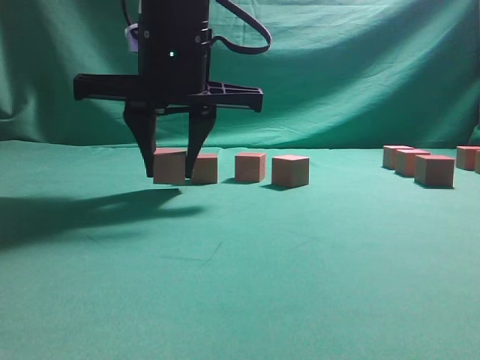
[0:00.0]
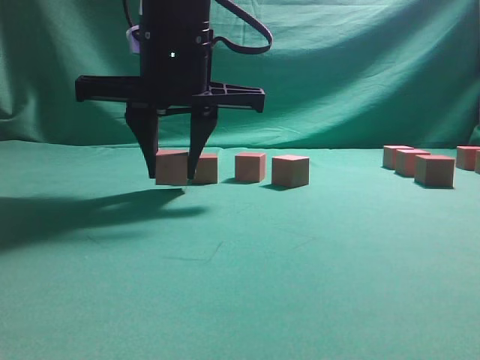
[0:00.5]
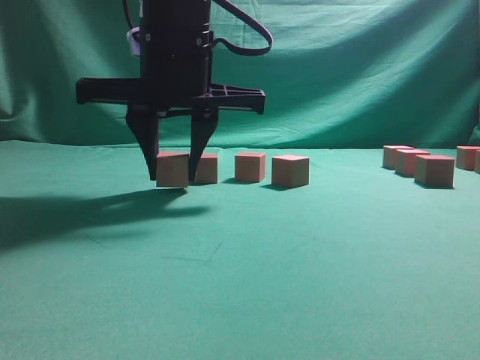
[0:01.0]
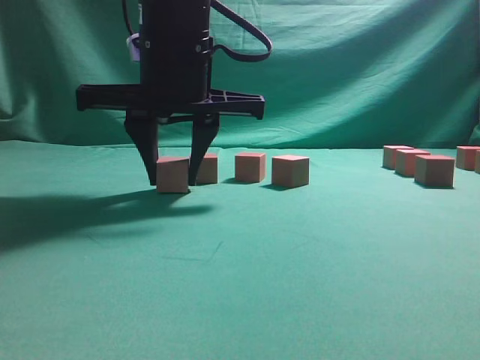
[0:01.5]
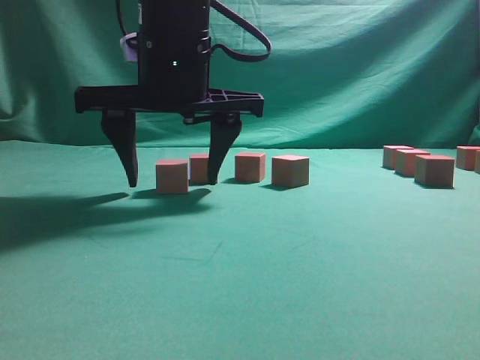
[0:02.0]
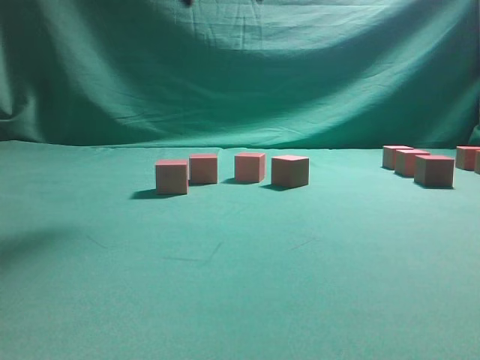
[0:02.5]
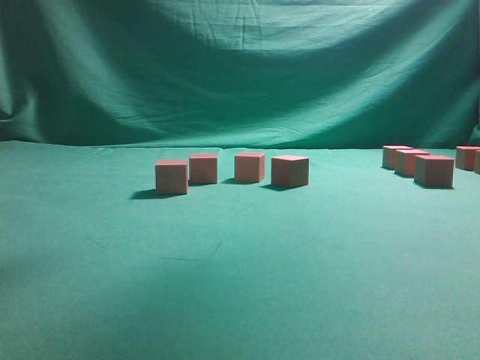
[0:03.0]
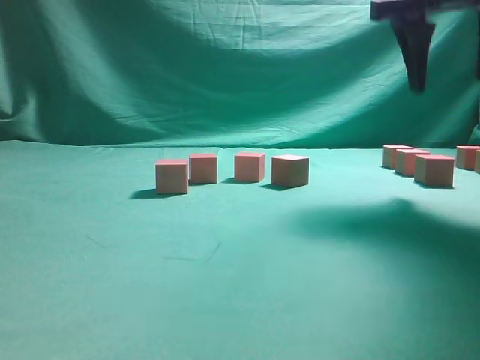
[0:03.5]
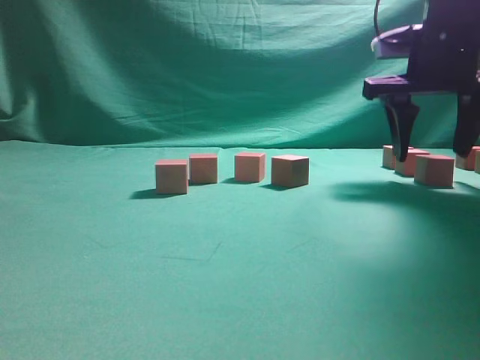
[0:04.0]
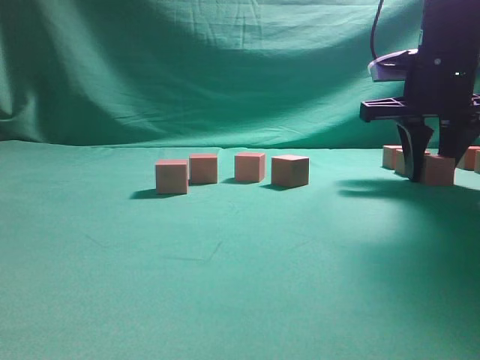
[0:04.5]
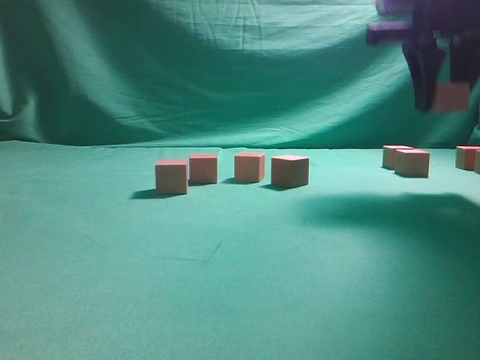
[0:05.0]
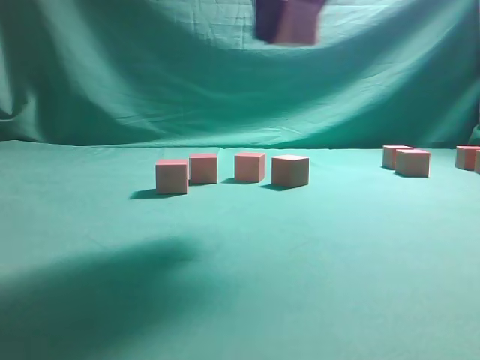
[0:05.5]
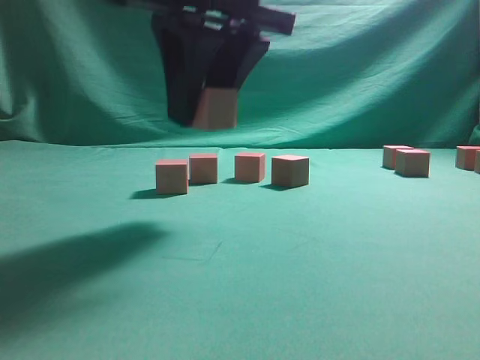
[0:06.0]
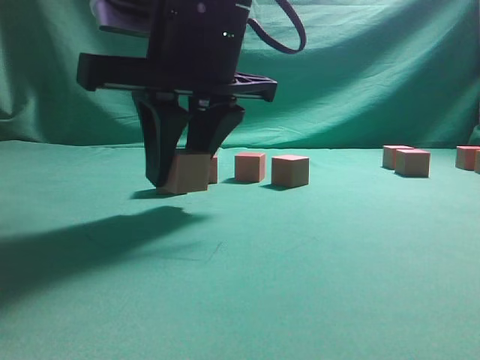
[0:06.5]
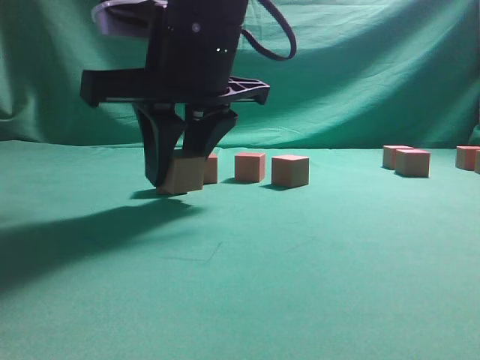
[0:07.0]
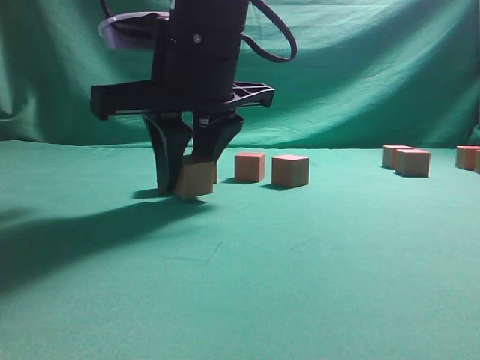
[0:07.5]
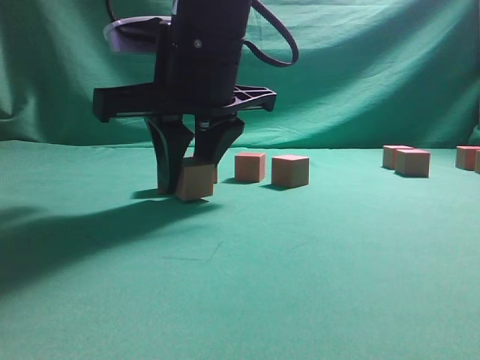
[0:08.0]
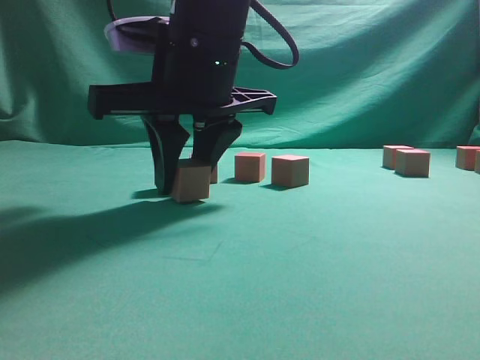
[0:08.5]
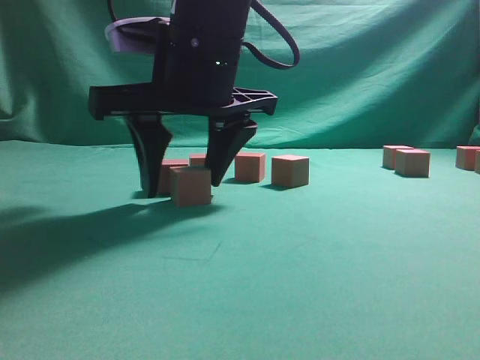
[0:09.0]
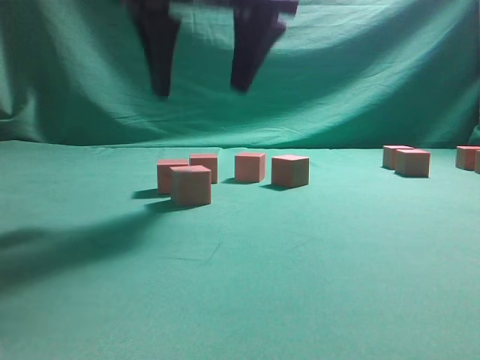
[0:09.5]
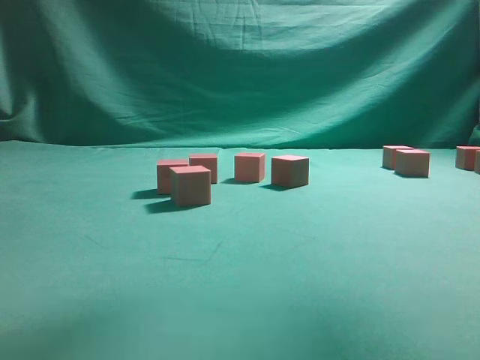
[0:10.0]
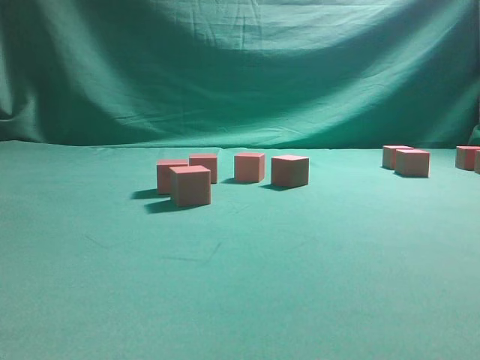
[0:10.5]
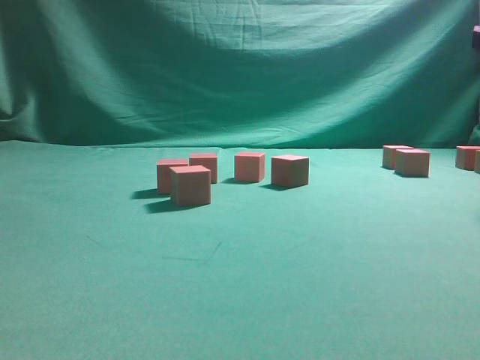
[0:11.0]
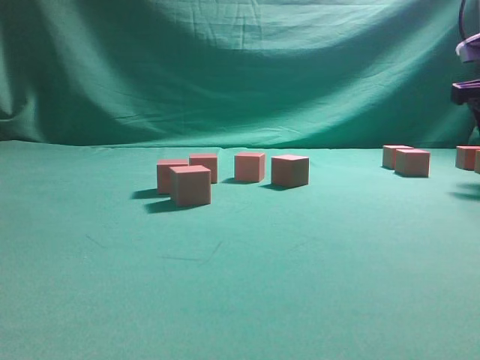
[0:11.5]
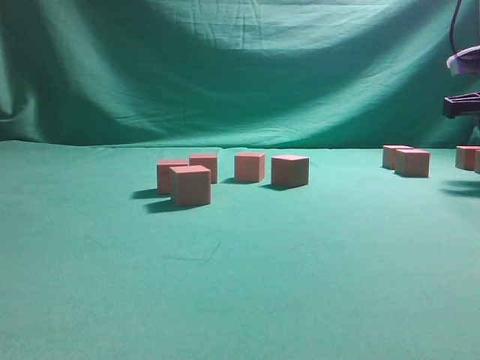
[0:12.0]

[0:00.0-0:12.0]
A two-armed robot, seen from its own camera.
Task of the whole recording: pick up the multiple cubes in two columns one by one and place them in another position on the table.
Step, 0:00.0 to 0:02.0: Place the block at the correct position to assemble the letter S.
Step, 0:02.5 to 0:04.5: Pick up the block on the table.
Step, 0:05.0 to 0:09.0: Place the block at the correct position to assemble the letter S.
0:00.0 to 0:02.0: The right gripper opens.
0:02.0 to 0:04.0: The right gripper moves to the right, about 25 cm.
0:04.0 to 0:06.0: The right gripper moves to the left and backward, some 25 cm, and closes up.
0:06.0 to 0:08.0: The right gripper goes about 5 cm downward.
0:08.0 to 0:10.0: The right gripper shifts about 25 cm upward and to the right, and opens up.
0:10.0 to 0:12.0: The right gripper travels downward, to the right and forward by roughly 30 cm, and closes its fingers.

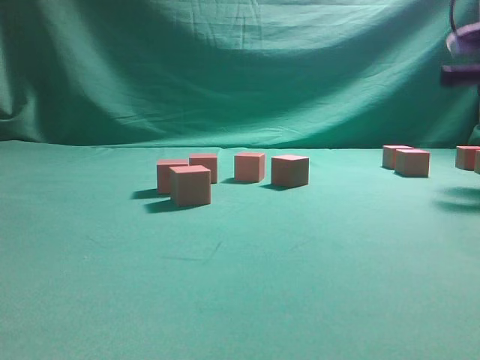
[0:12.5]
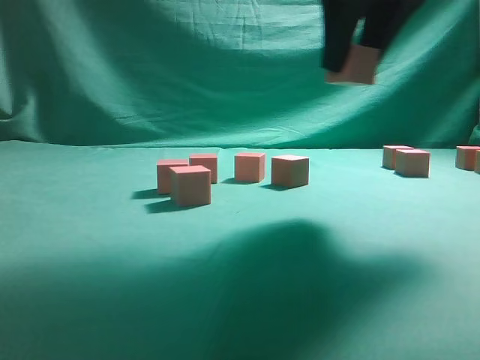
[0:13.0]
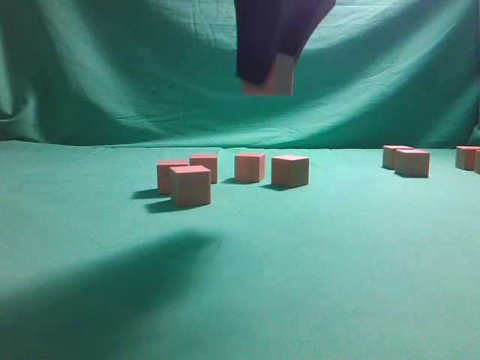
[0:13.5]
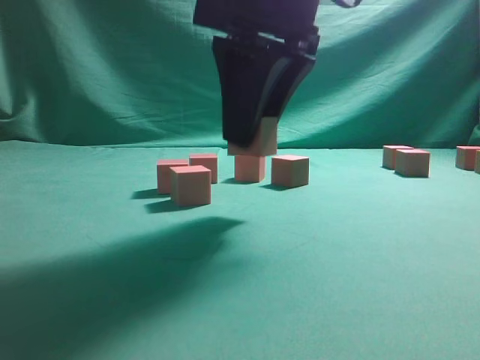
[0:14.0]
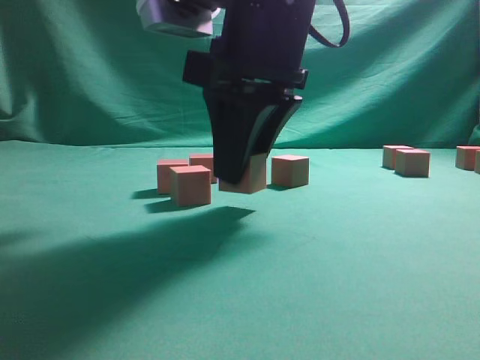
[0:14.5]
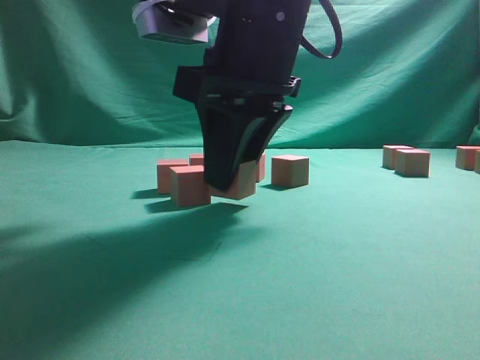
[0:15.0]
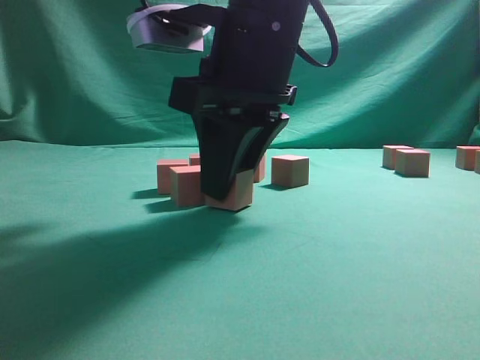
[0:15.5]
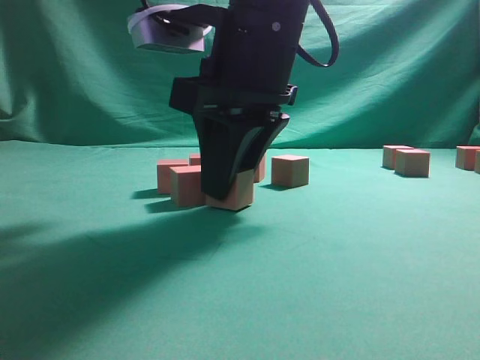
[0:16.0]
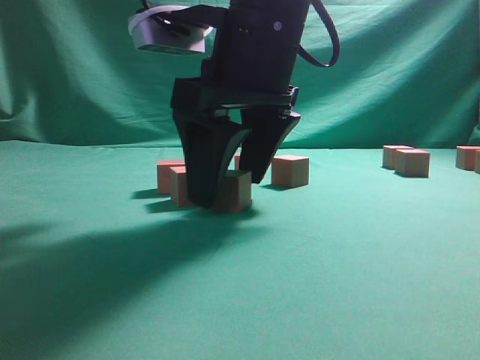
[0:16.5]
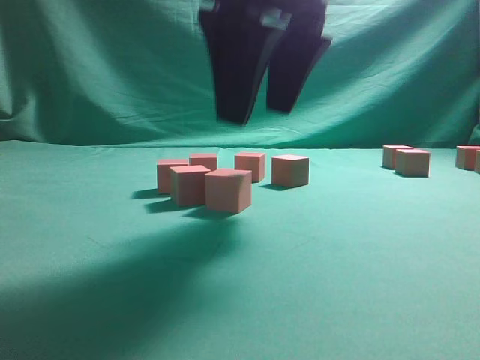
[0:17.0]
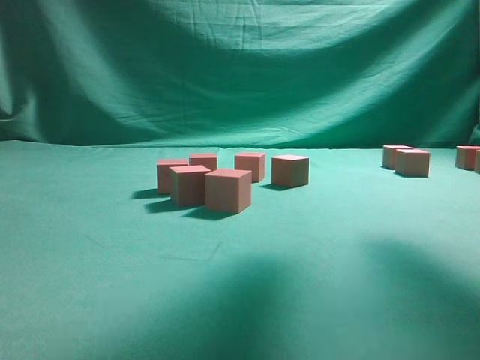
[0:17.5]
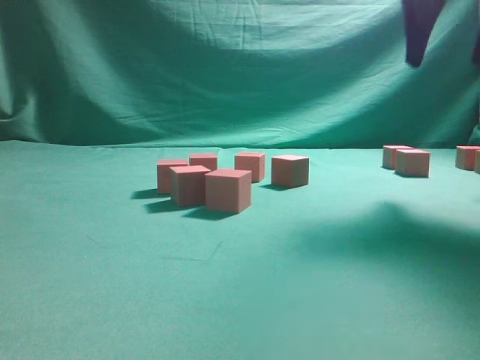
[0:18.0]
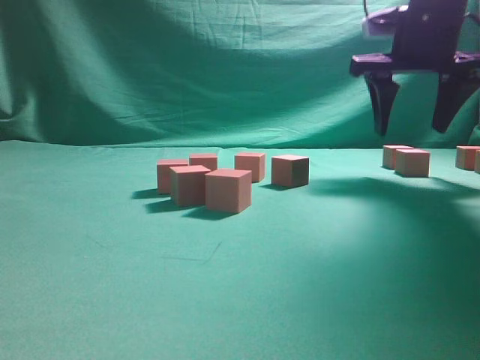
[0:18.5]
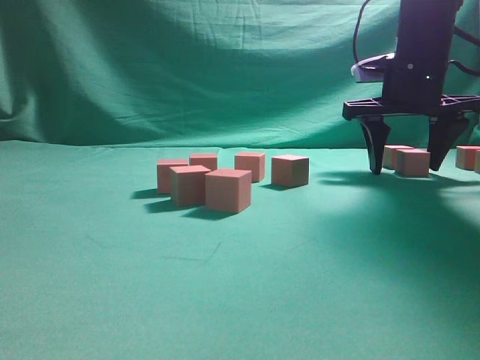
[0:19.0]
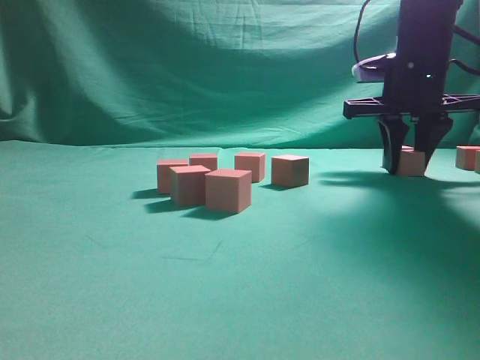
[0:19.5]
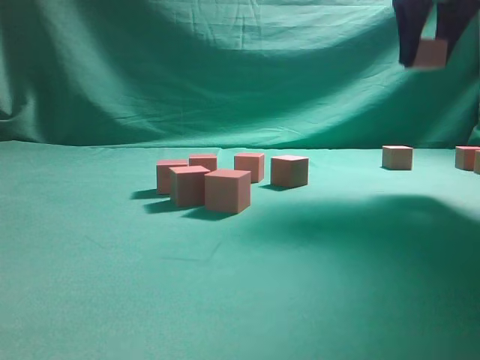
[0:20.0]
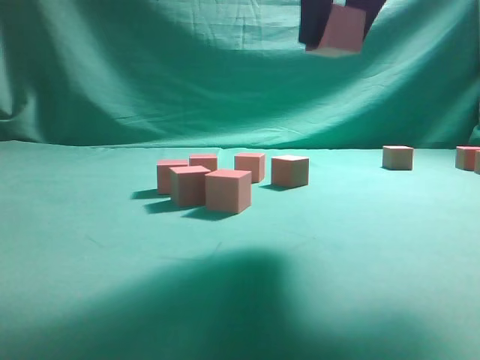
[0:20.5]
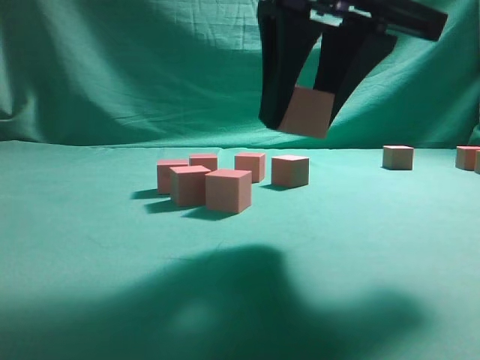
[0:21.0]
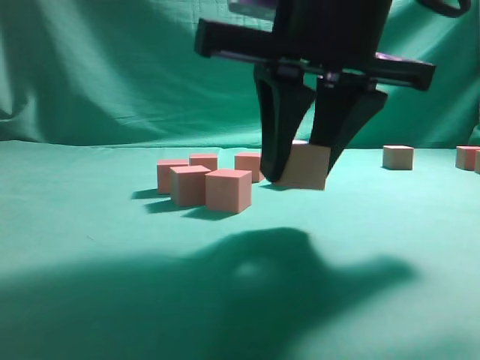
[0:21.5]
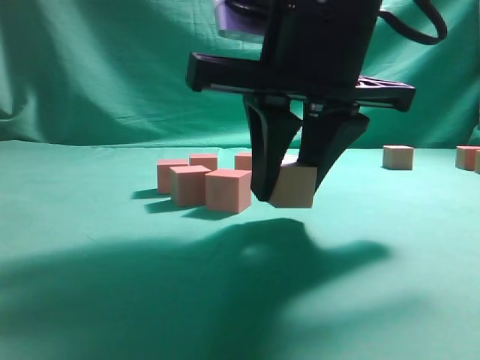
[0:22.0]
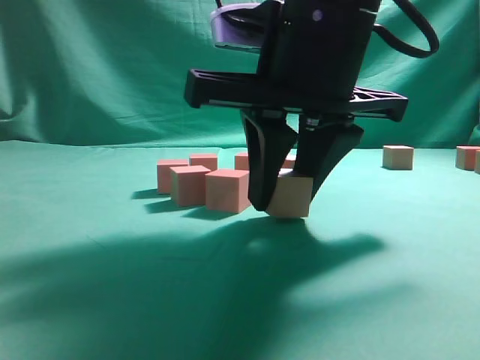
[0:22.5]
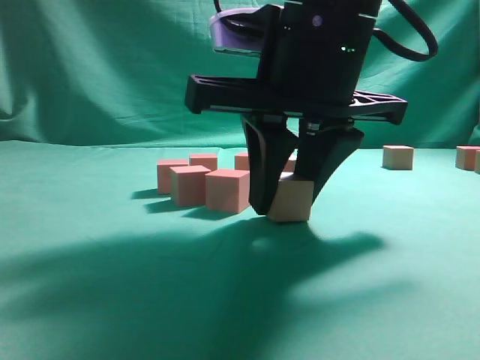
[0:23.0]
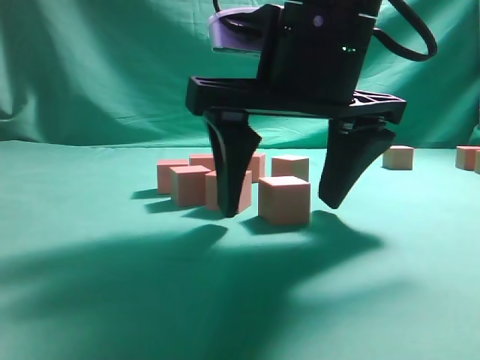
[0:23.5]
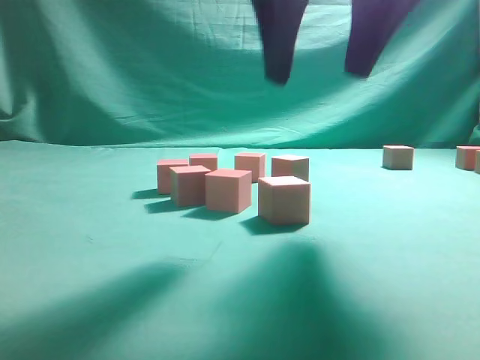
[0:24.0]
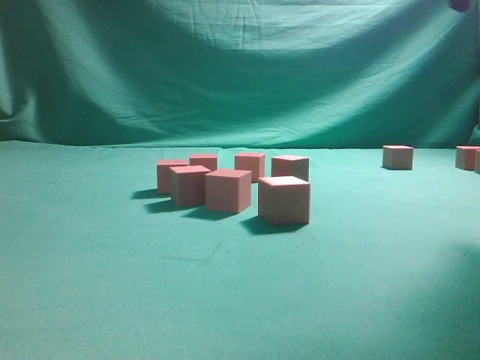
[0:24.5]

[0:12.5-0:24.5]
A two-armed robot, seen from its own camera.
Task of the whole recording: pick up the multiple cubes in two columns one by one and place them in another position on the table.
Step, 0:13.0 to 0:17.0: Place the block at the correct position to assemble the letter S.
Step, 0:17.5 to 0:19.5: Pick up the block on the table.
Step, 0:20.0 to 0:23.5: Place the block at the correct position to assemble the letter S.
0:12.5 to 0:14.5: The right gripper is displaced to the left by some 25 cm.
0:14.5 to 0:16.5: The right gripper opens its fingers.
0:16.5 to 0:18.5: The right gripper heads to the right and forward, covering about 25 cm.
0:18.5 to 0:20.5: The right gripper travels backward, to the left and upward by roughly 20 cm, and closes.
0:20.5 to 0:22.5: The right gripper heads downward, covering roughly 10 cm.
0:22.5 to 0:24.5: The right gripper moves to the right and upward, about 20 cm, and opens.

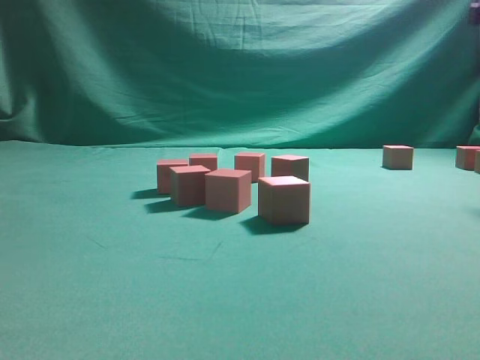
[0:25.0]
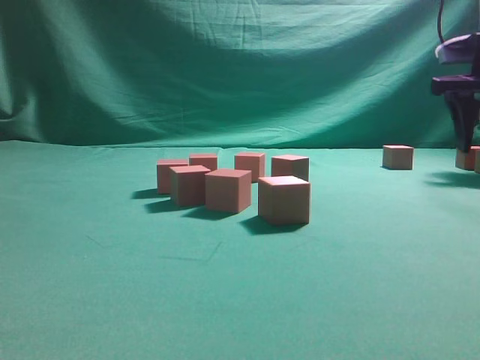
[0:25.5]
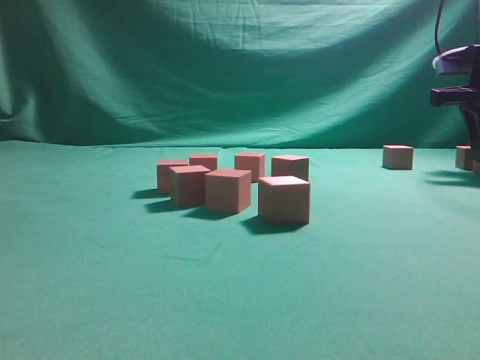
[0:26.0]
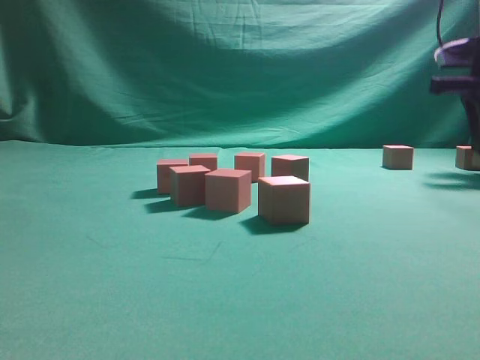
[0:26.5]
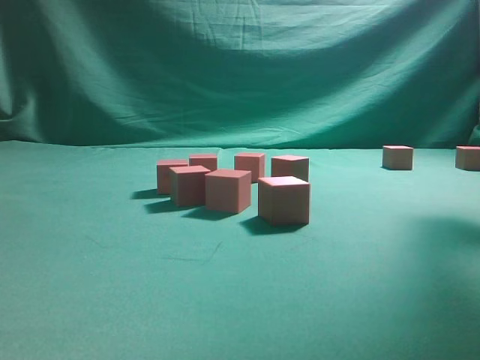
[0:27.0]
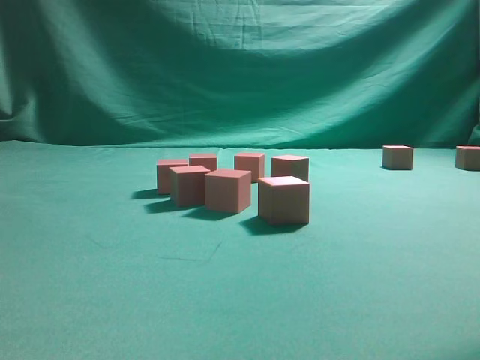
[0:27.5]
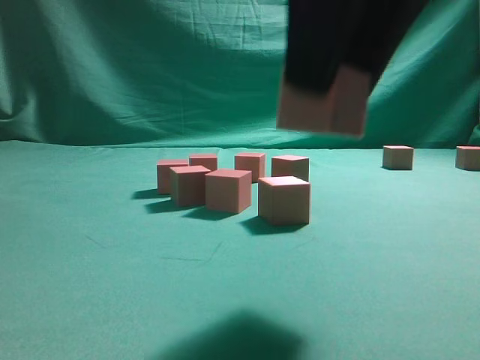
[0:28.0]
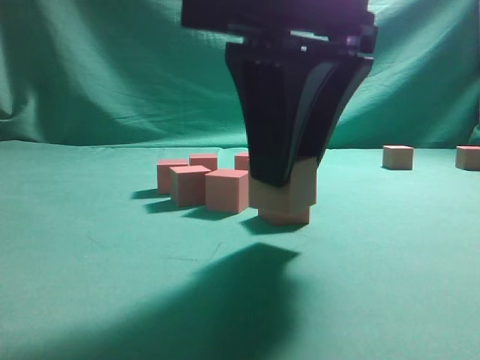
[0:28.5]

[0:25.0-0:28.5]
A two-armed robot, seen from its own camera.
Task of the whole recording: pick up the multiple cubes in two columns one by one and place them in another position on the table.
Step, 0:25.0 to 0:26.5: Pick up the block on the table.
0:25.0 to 0:27.0: The right gripper moves upward and to the left, about 15 cm, and closes up.
0:27.0 to 0:28.5: The right gripper goes roughly 30 cm to the left, downward and backward.
